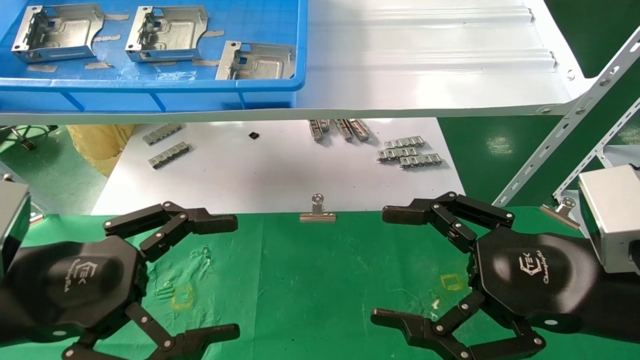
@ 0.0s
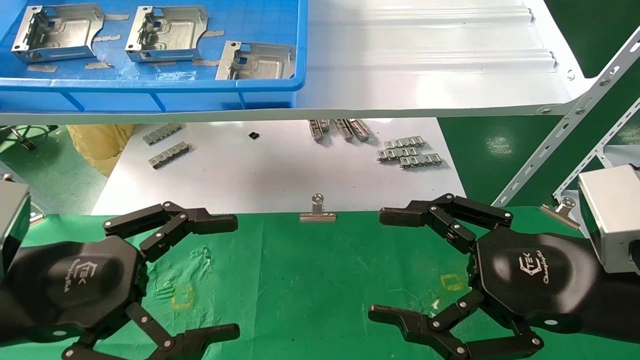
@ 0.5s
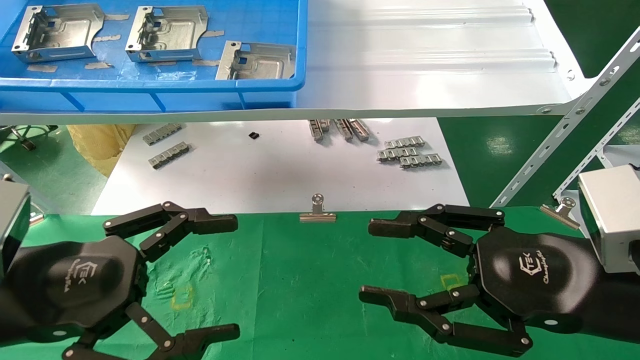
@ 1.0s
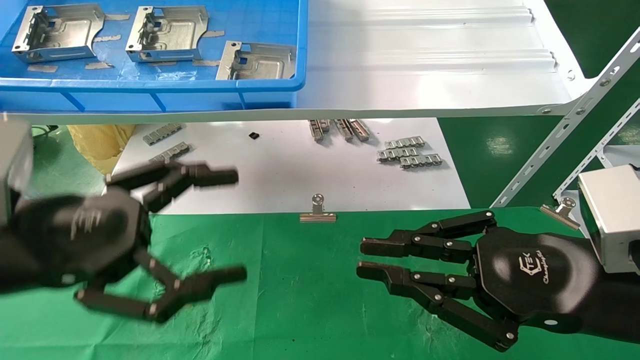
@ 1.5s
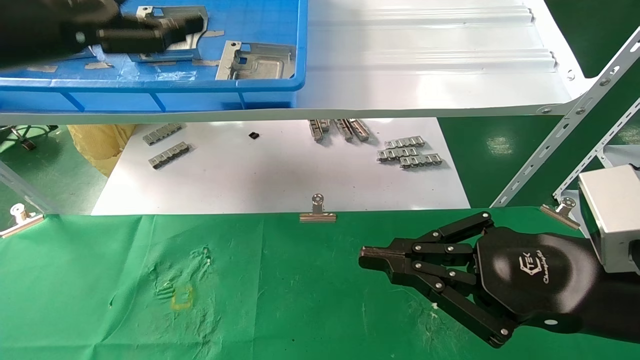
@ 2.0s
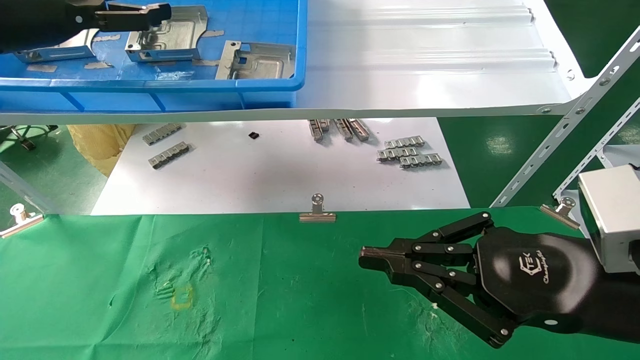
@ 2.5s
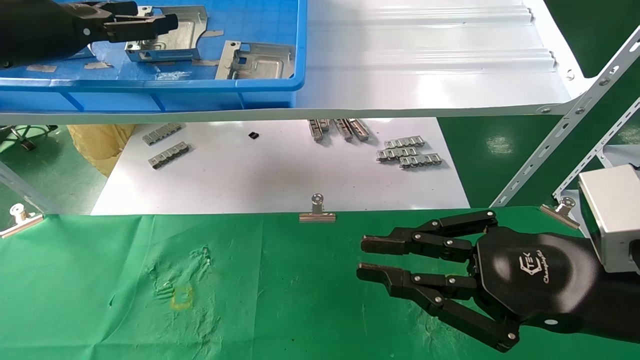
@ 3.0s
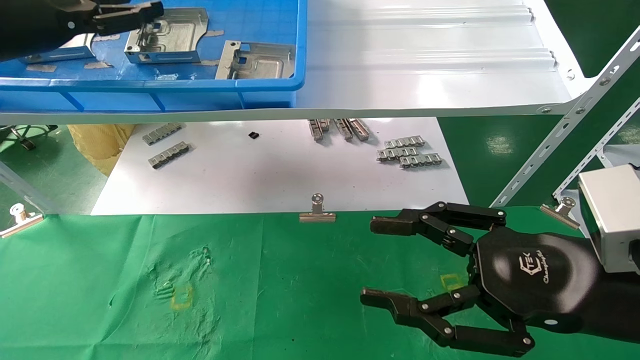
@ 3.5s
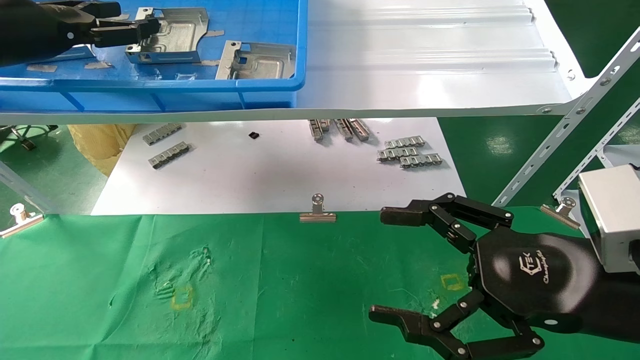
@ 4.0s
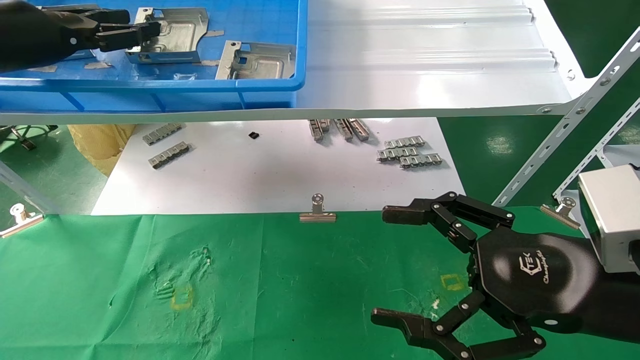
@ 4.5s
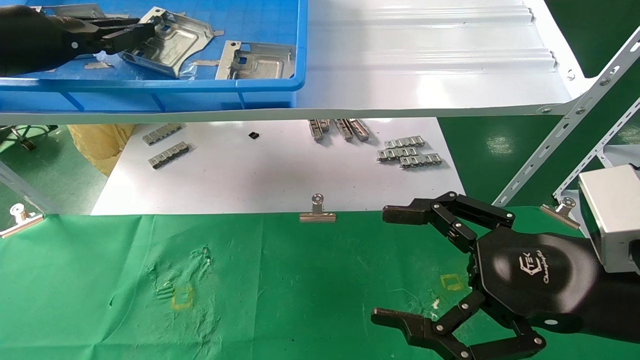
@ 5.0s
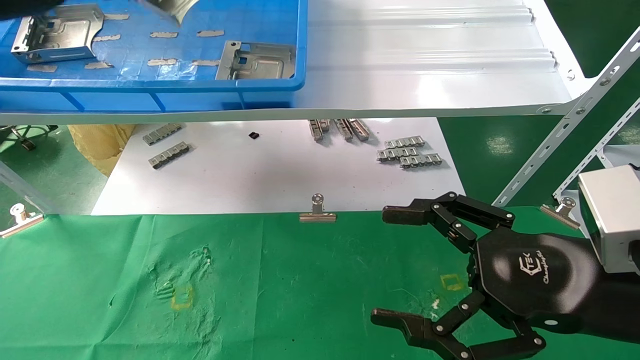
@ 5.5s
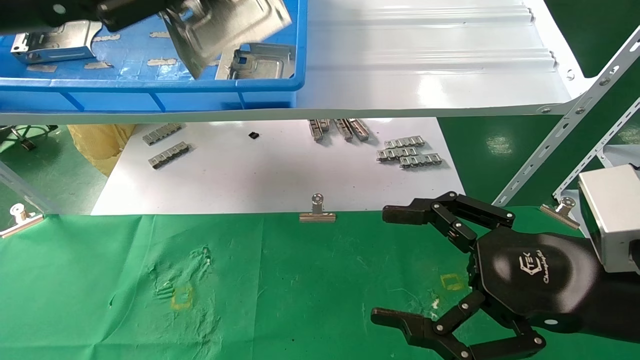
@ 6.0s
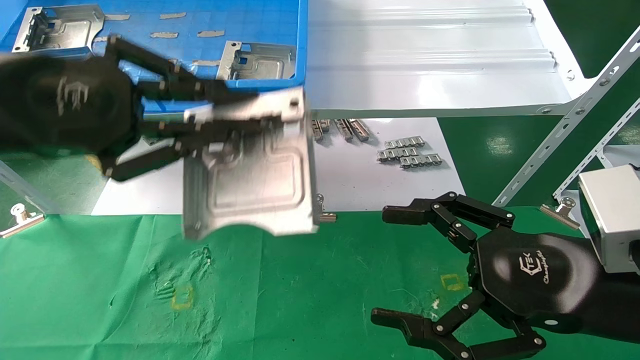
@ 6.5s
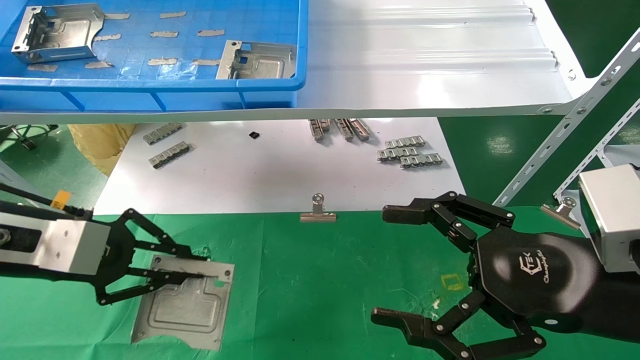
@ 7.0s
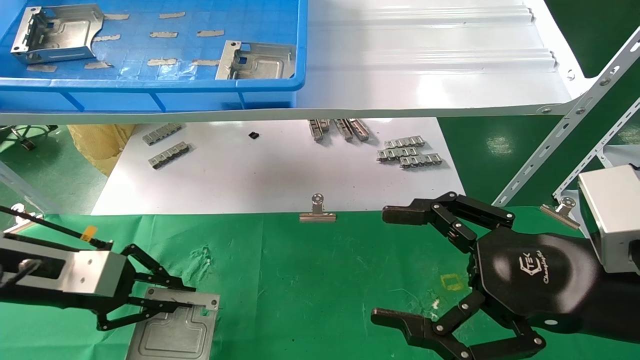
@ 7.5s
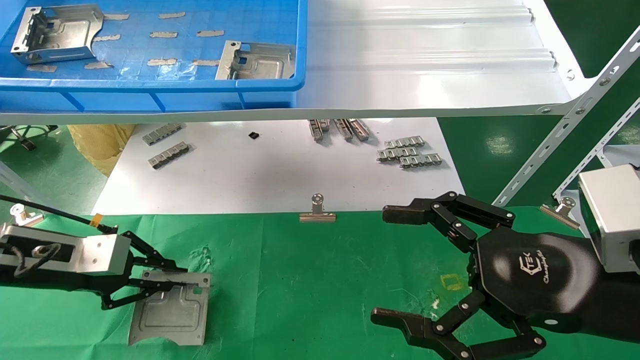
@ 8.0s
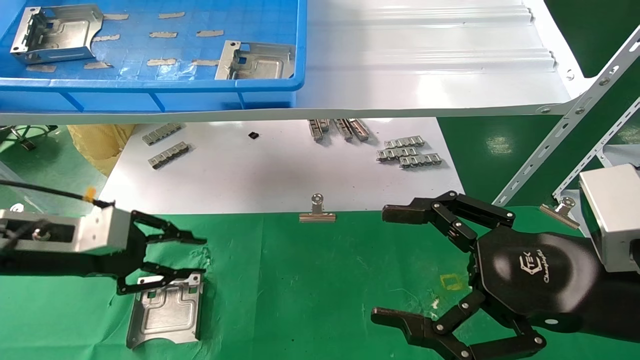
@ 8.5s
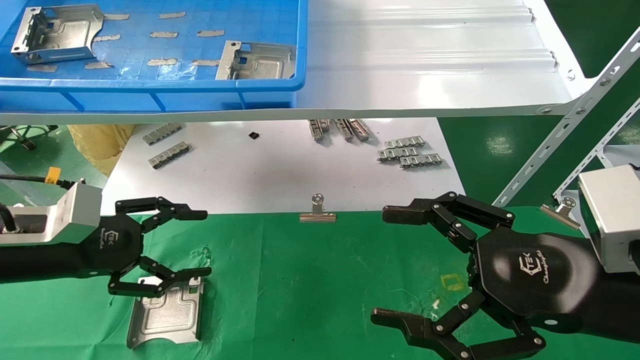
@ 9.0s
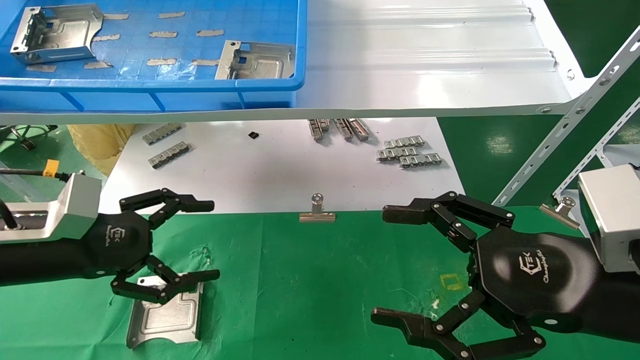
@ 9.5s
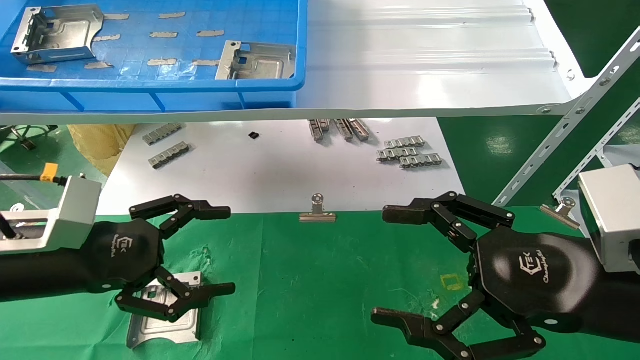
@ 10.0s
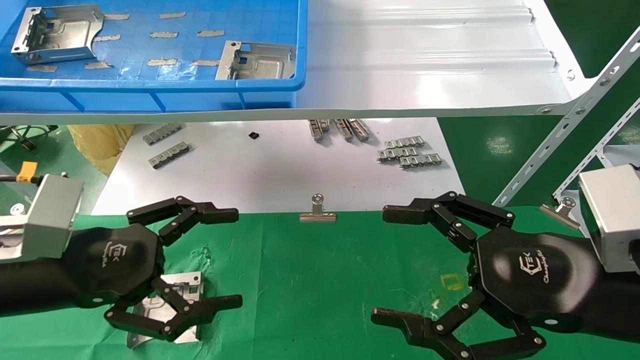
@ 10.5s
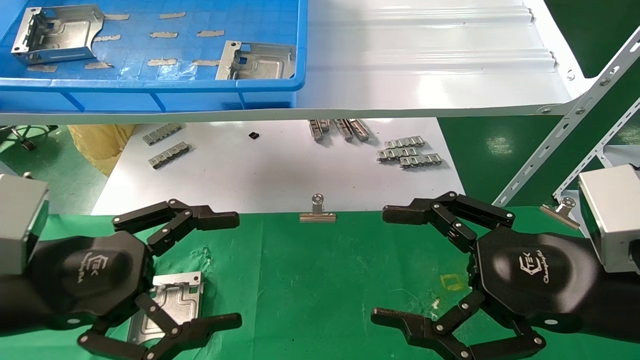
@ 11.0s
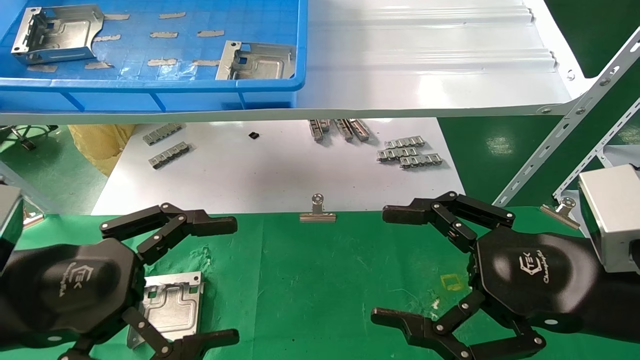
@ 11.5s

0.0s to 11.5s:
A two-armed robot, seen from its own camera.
Task of the whole recording: use the mechanical arm to pick up the parts and place them on the table.
Step, 2.0s to 5.0s: Pick up the hard drive bracket from the feeding area.
Step, 5.5s to 8.0s: Place the hard drive bracket into the box.
0.0s to 2.0s: The right gripper closes up; the left gripper is displaced upward and forward by roughly 25 cm.
2.0s to 4.0s: The right gripper opens its fingers. The left gripper heads forward and to the left, covering approximately 10 cm.
4.0s to 6.0s: The left gripper moves backward and to the right, approximately 10 cm, and closes up.
6.0s to 7.5s: The left gripper heads downward, covering some 25 cm.
7.5s to 9.5s: The left gripper opens up.
9.5s to 11.5s: The left gripper shifts roughly 10 cm backward.

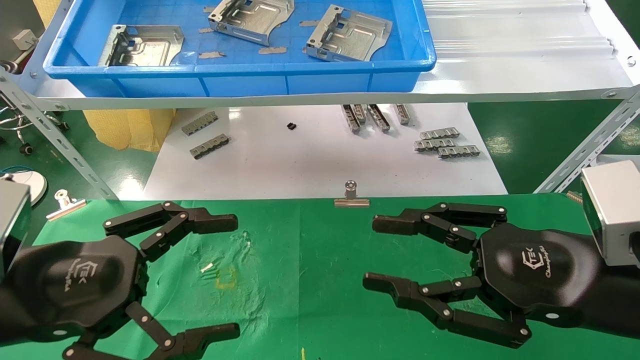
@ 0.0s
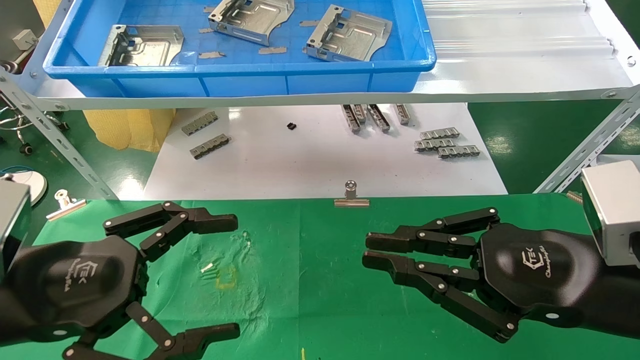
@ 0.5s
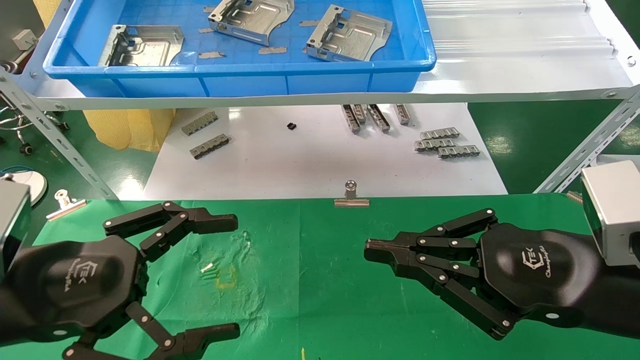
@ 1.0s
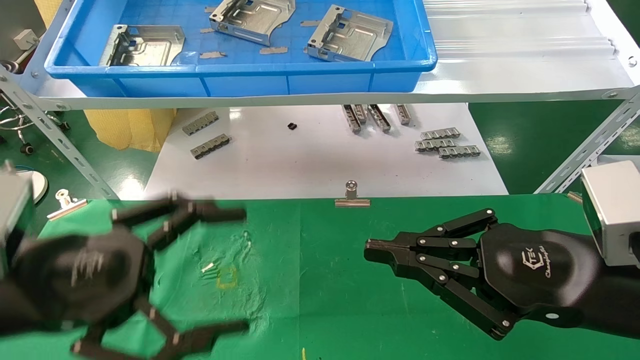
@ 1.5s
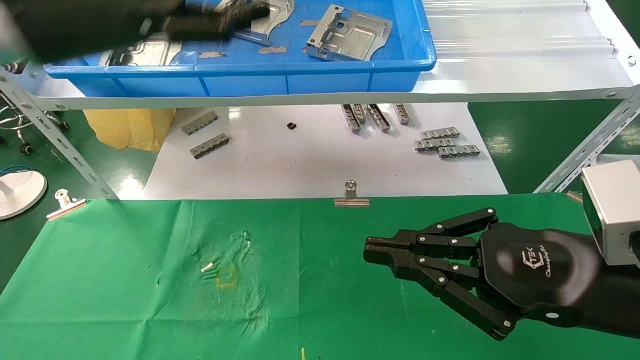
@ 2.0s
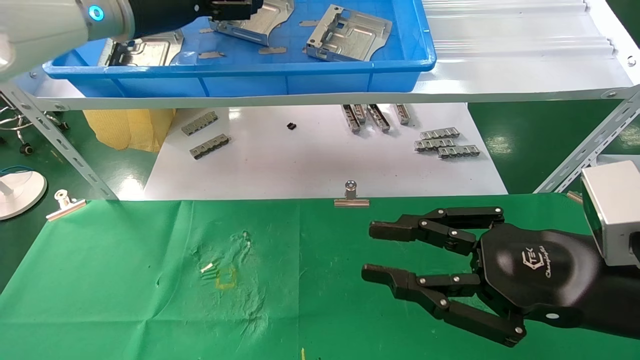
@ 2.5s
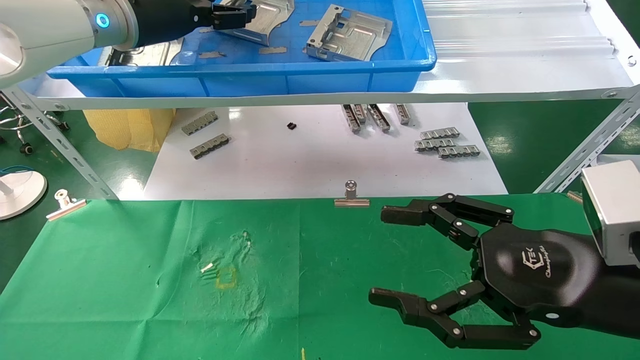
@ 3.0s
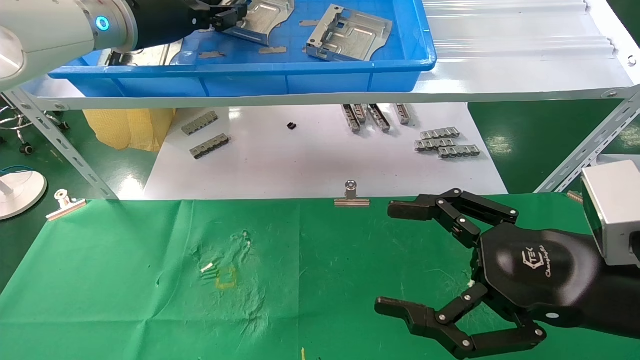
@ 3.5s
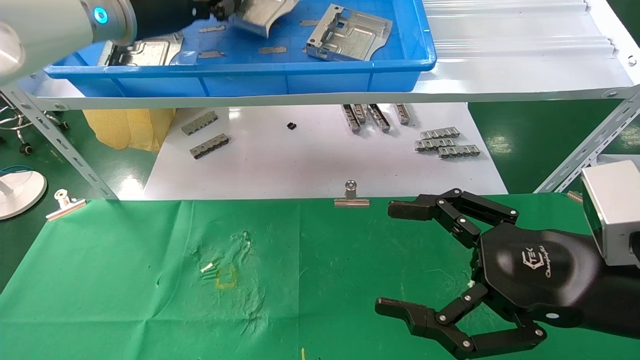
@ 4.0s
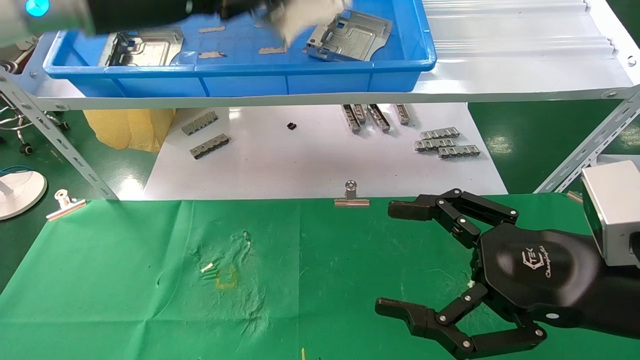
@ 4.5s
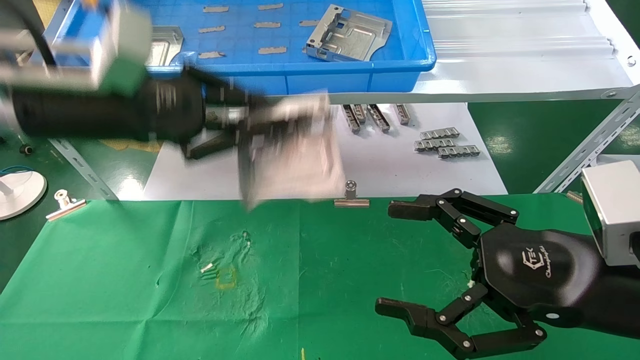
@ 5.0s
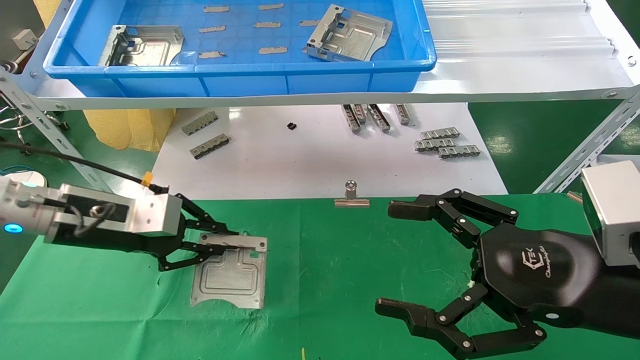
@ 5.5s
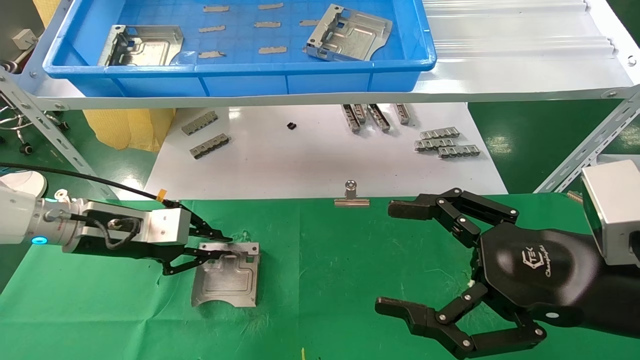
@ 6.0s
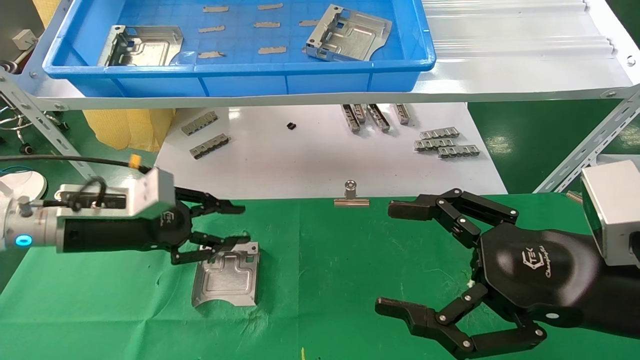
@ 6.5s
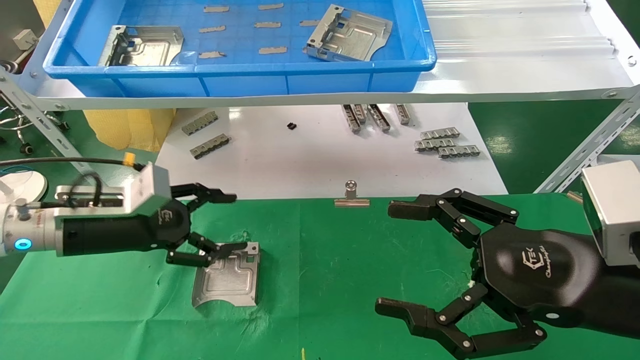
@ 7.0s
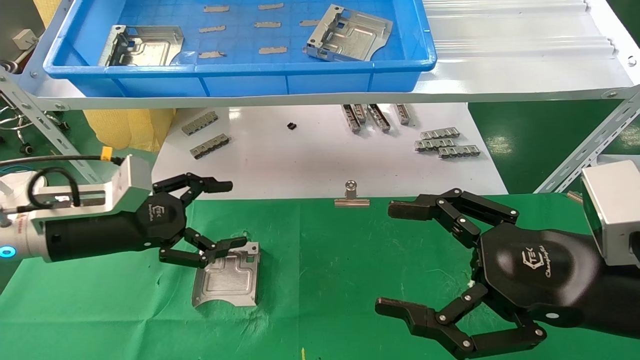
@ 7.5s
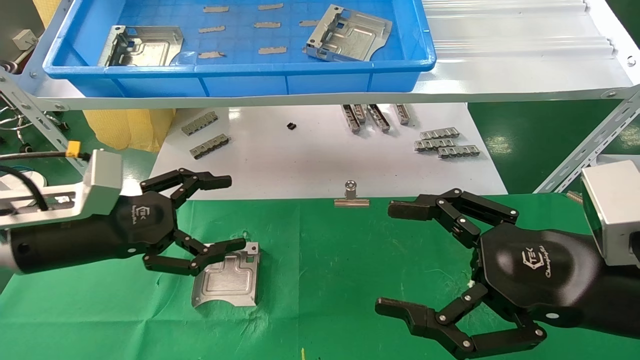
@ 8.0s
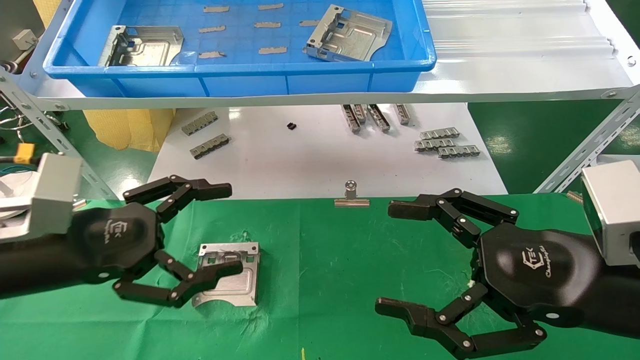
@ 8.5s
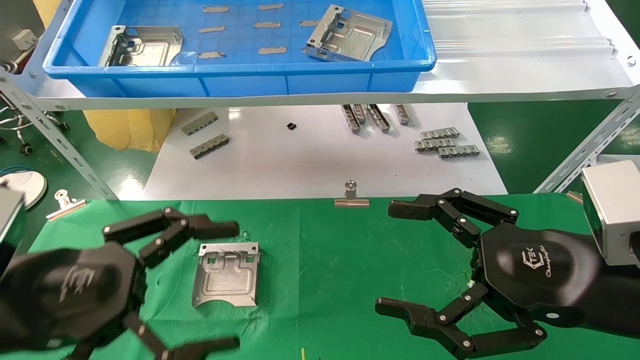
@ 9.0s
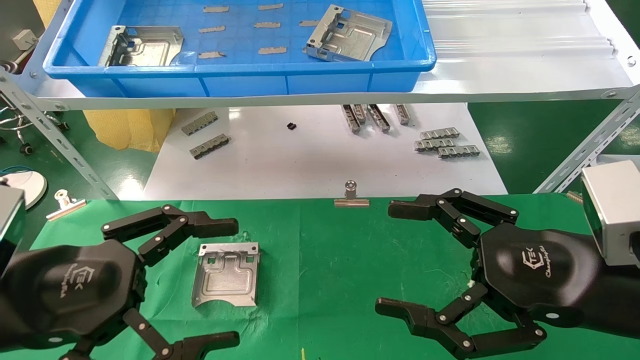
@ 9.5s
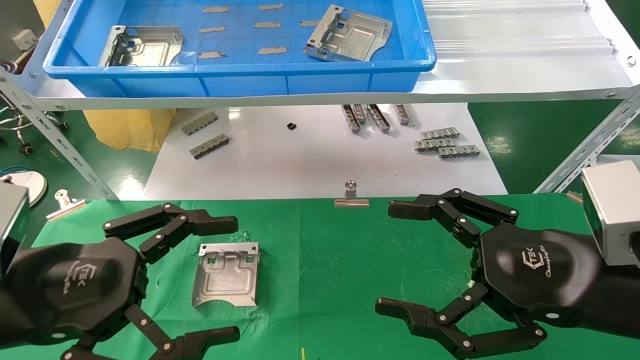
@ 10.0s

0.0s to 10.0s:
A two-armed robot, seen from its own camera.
Task of the whole recording: use the mechanical arm to pick up the parts and place them on the table.
Step, 2.0s to 4.5s: Pick up the hard drive bracket from the feeding area.
Step, 5.0s to 7.0s: Place the hard drive bracket into the box.
0.0s to 2.0s: The right gripper closes up, while the left gripper travels upward and forward by about 25 cm.
2.0s to 4.0s: The right gripper opens up; the left gripper goes approximately 10 cm forward, and closes up.
4.0s to 6.0s: The left gripper moves downward, about 25 cm.
6.0s to 8.0s: The left gripper goes about 10 cm backward, and opens.
8.0s to 10.0s: The left gripper heads backward, covering roughly 10 cm.
